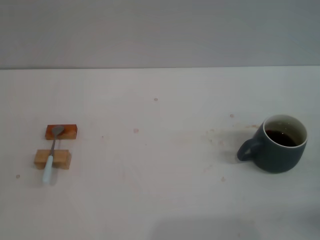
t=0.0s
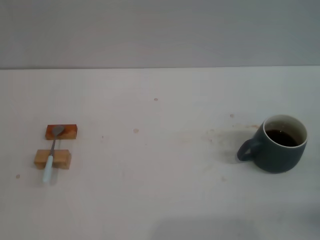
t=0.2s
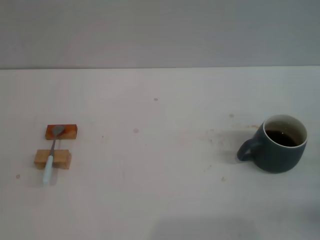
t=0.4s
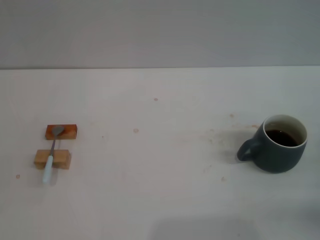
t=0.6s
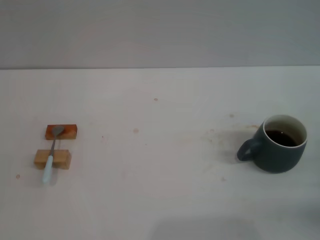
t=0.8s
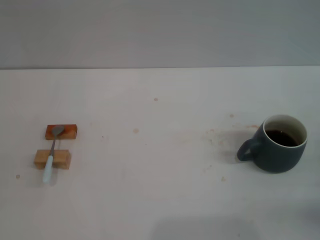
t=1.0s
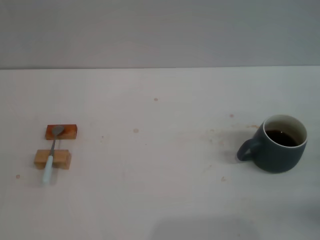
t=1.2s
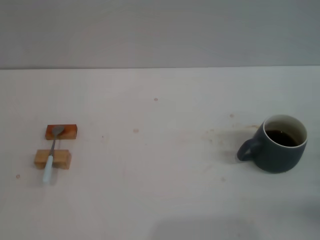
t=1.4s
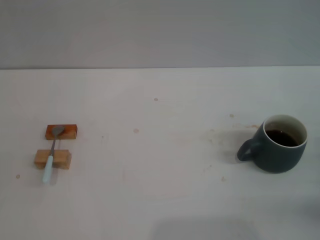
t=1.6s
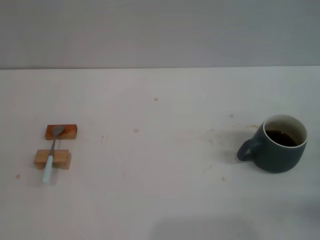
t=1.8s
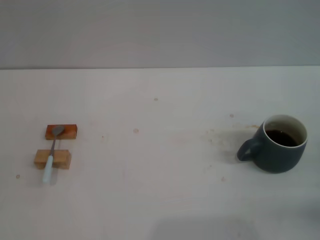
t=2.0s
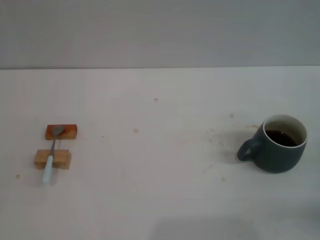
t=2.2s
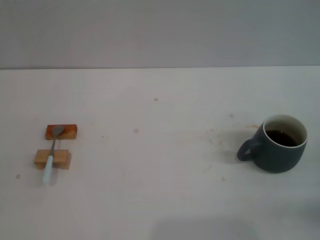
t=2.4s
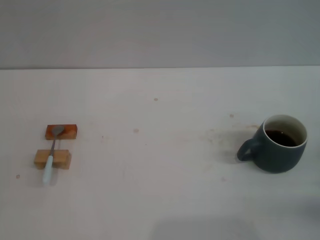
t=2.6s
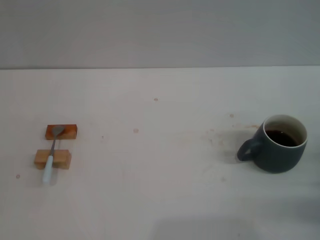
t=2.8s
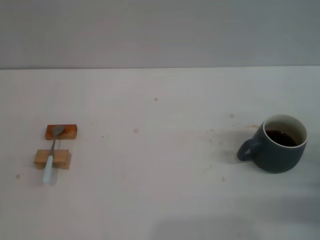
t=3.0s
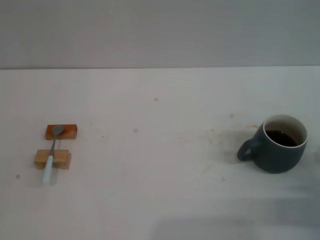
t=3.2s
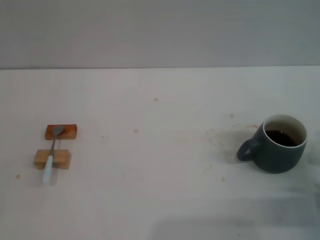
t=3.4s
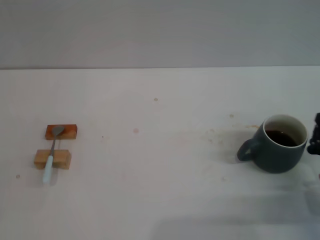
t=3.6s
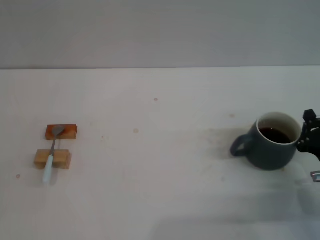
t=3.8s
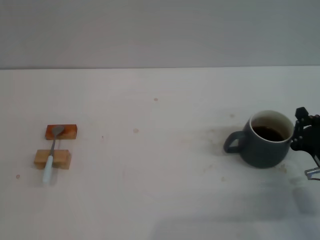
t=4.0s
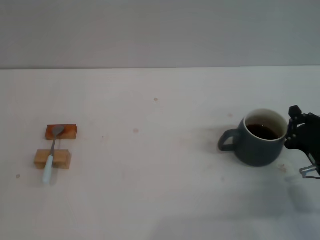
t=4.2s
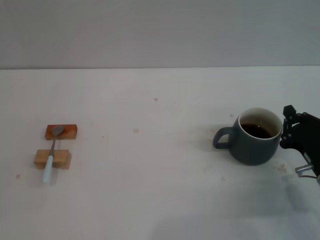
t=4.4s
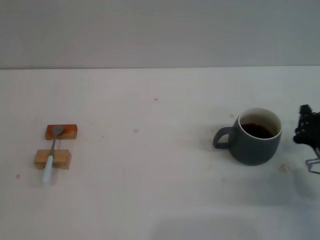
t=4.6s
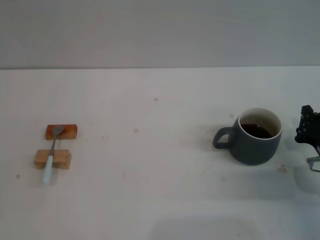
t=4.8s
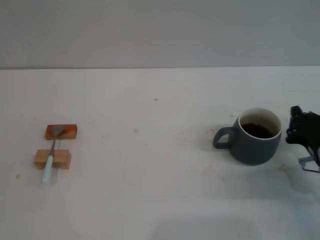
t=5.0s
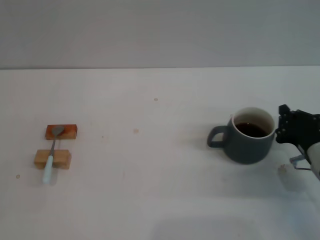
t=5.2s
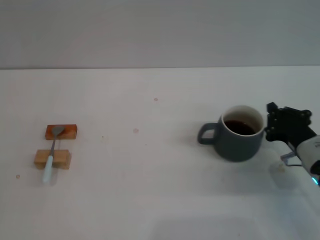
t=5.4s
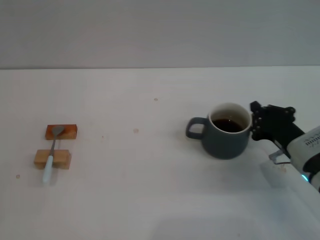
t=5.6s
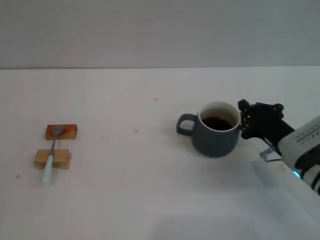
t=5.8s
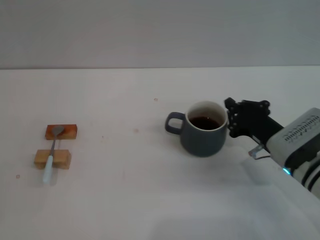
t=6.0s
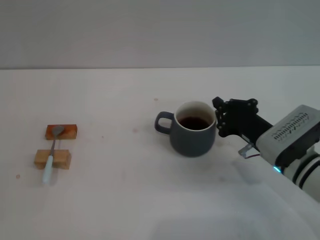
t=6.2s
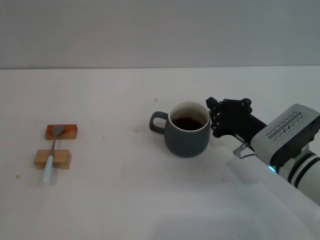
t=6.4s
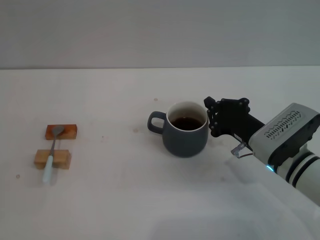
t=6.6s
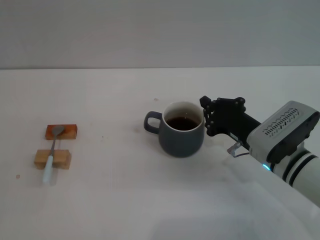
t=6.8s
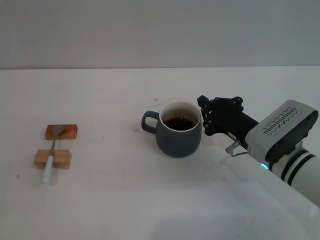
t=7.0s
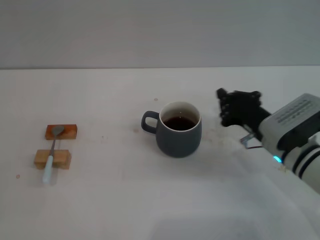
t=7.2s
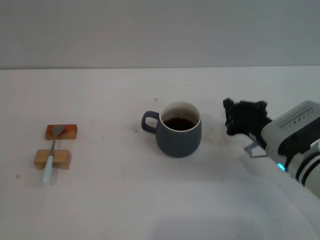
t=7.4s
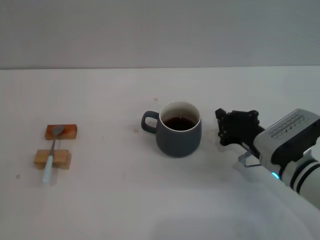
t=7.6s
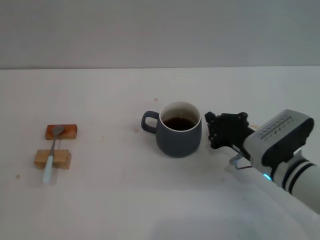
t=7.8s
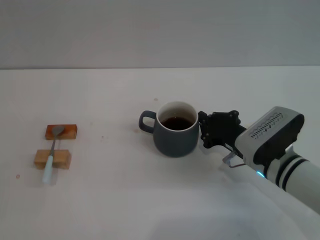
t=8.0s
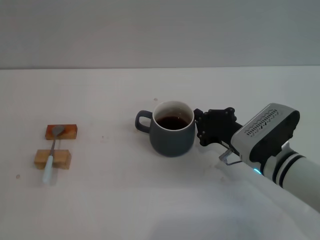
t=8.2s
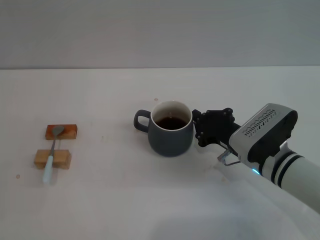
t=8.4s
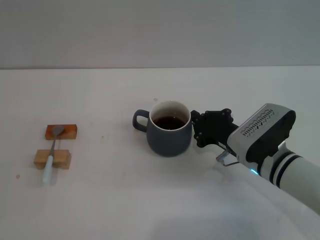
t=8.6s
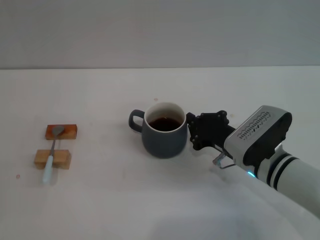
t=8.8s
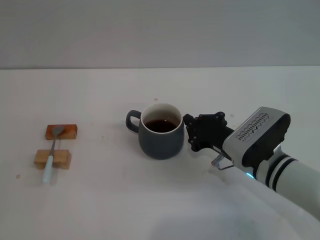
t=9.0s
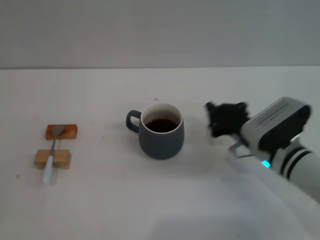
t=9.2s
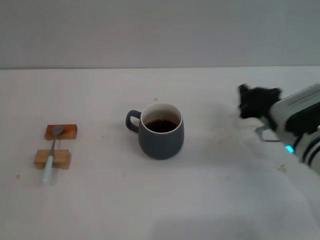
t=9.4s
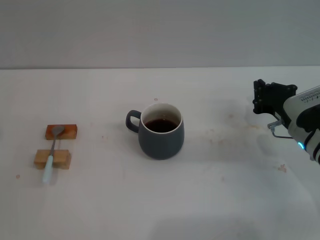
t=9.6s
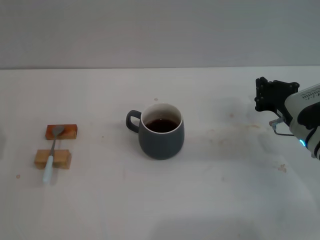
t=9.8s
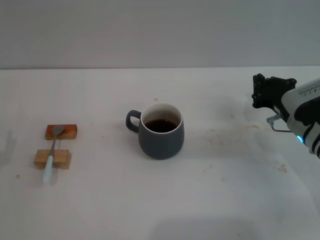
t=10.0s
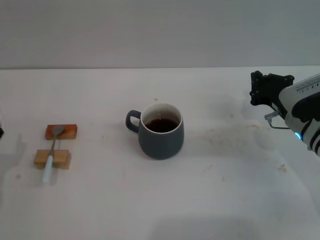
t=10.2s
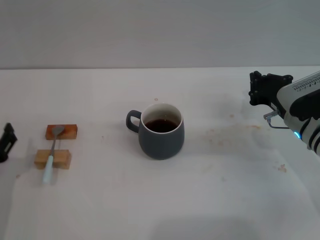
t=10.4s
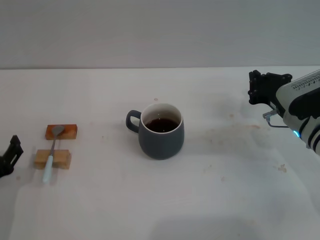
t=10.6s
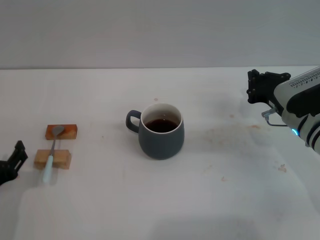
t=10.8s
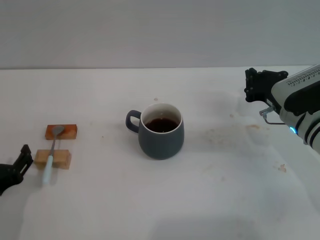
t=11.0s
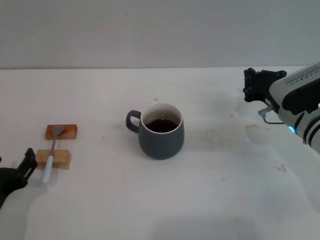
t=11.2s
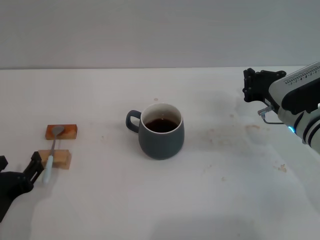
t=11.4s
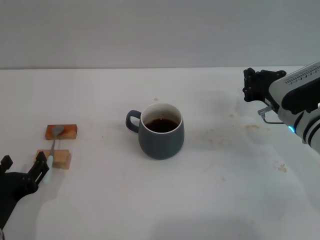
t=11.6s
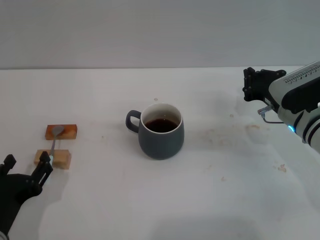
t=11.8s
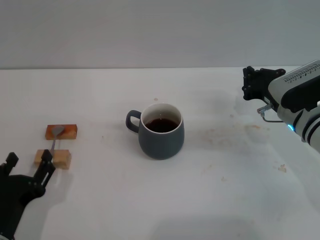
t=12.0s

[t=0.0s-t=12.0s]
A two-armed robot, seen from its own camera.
Task of the whole recording: Move the grey cup to the center, lift the blue spoon, stir it three times in the cup, and put the spoon into the cup.
Step, t=0.0s to t=10.4s: Move the cup with coffee to the center of view with the right gripper.
t=3.0s to t=4.4s: The right gripper goes roughly 5 cm to the left.
t=4.4s to t=6.0s: The right gripper shifts about 10 cm forward and to the left.
t=6.0s to t=9.0s: There are only small adjustments of the grippers.
t=9.0s to t=10.4s: The left gripper moves to the right, roughly 10 cm. The right gripper is displaced to the right and forward by approximately 10 cm.
t=10.4s to t=12.0s: The left gripper is displaced to the right and backward by roughly 10 cm.

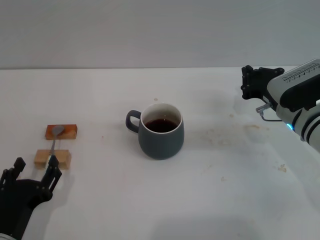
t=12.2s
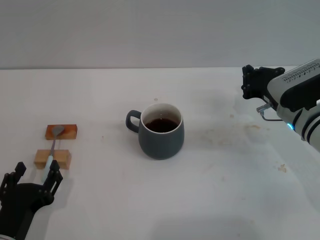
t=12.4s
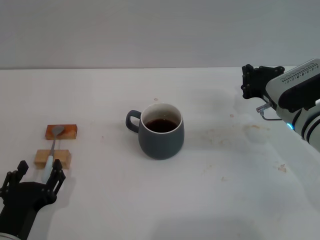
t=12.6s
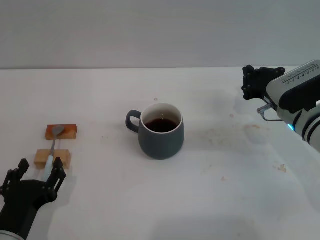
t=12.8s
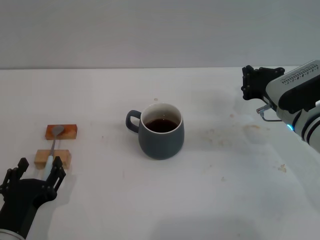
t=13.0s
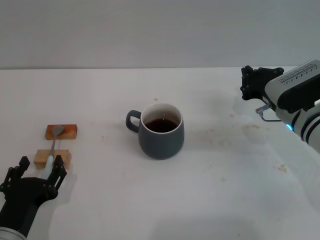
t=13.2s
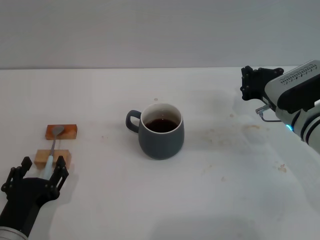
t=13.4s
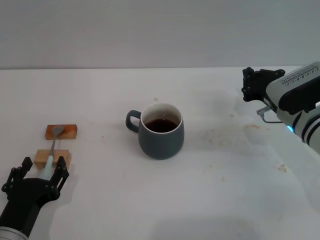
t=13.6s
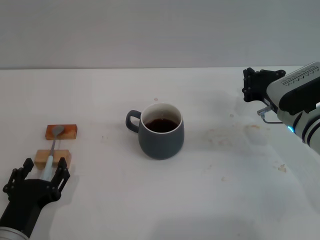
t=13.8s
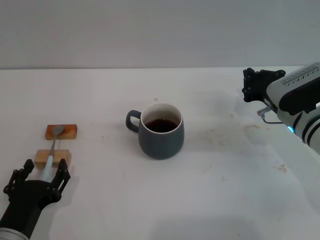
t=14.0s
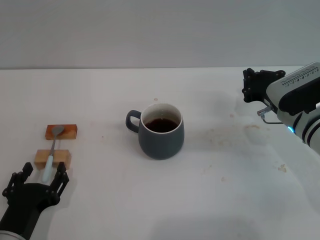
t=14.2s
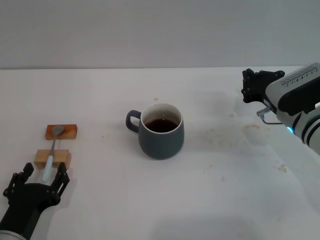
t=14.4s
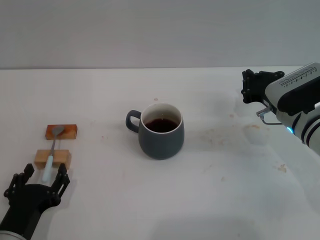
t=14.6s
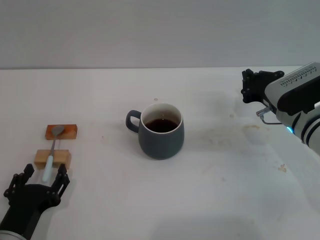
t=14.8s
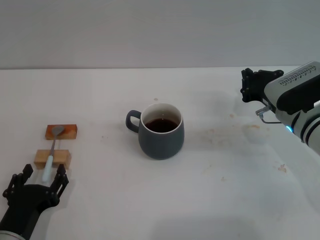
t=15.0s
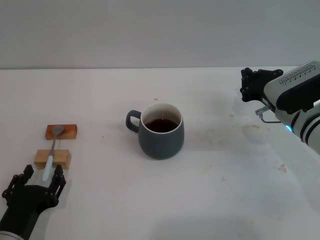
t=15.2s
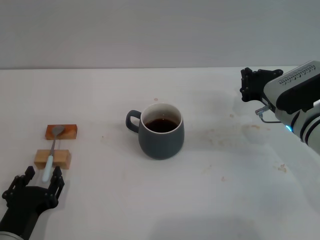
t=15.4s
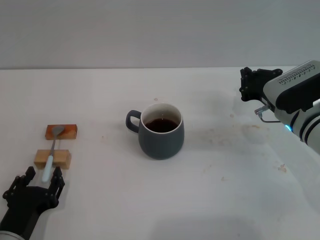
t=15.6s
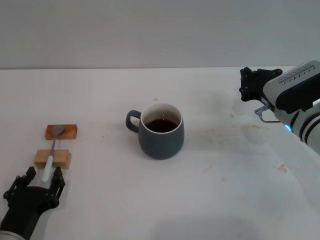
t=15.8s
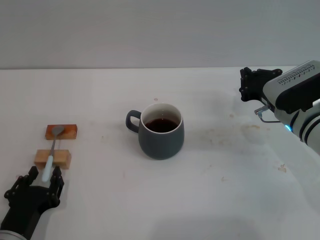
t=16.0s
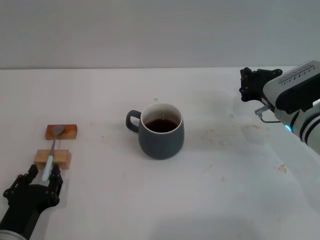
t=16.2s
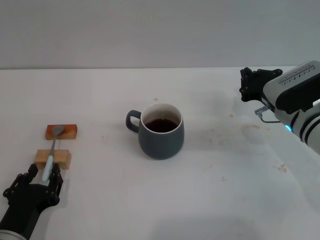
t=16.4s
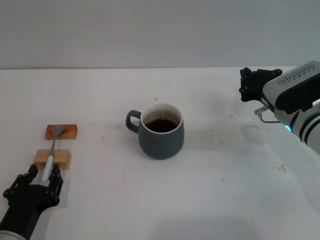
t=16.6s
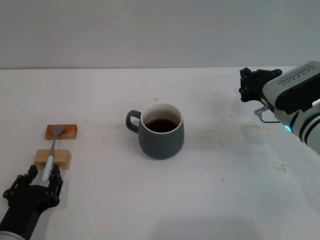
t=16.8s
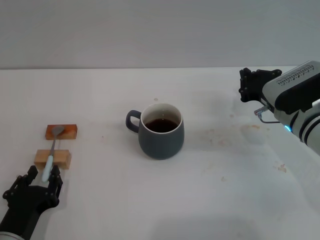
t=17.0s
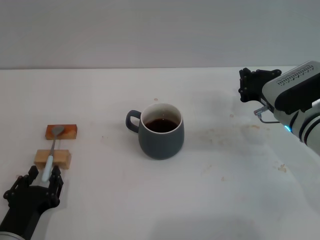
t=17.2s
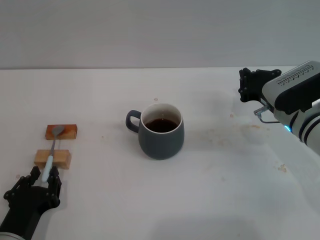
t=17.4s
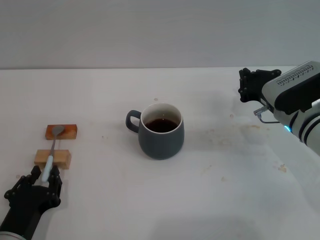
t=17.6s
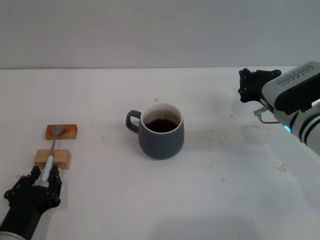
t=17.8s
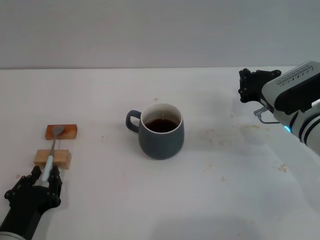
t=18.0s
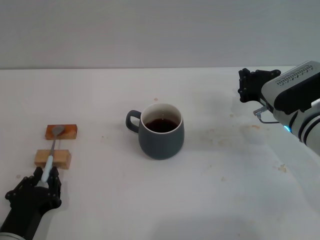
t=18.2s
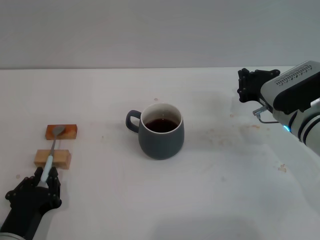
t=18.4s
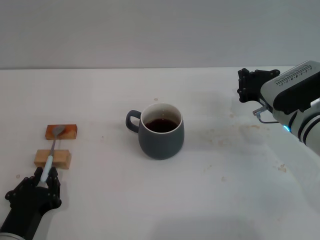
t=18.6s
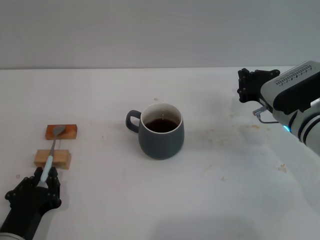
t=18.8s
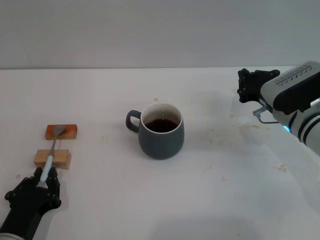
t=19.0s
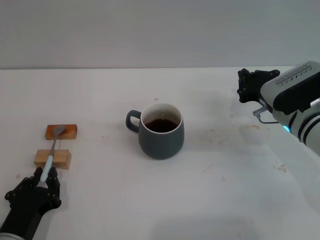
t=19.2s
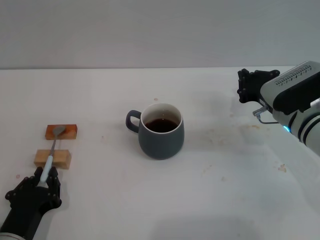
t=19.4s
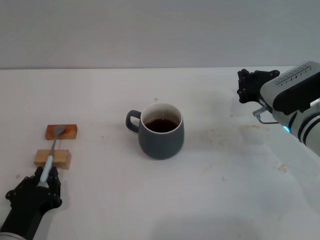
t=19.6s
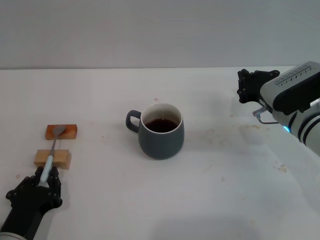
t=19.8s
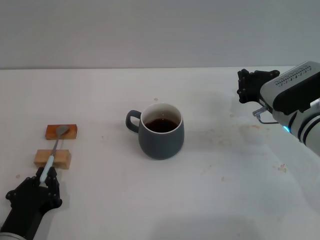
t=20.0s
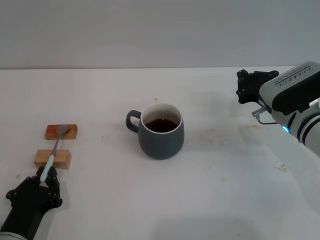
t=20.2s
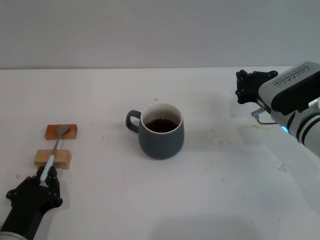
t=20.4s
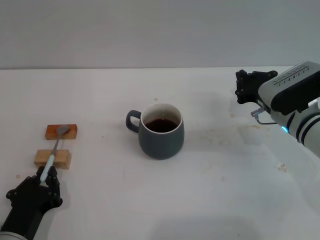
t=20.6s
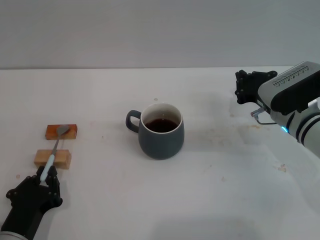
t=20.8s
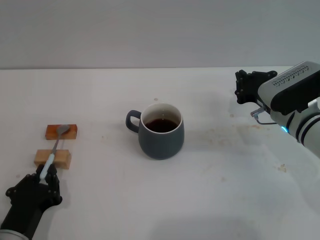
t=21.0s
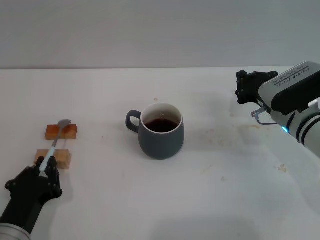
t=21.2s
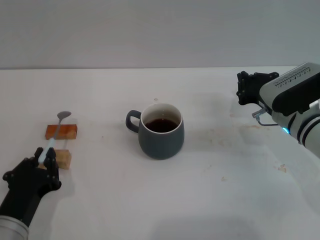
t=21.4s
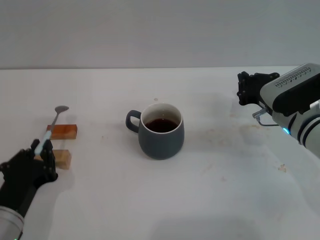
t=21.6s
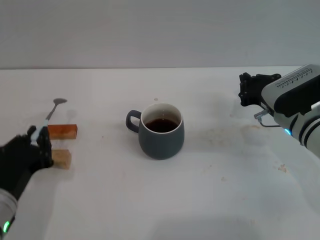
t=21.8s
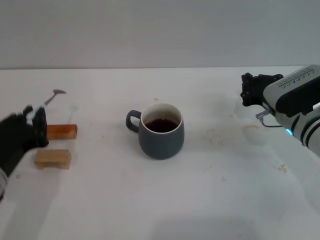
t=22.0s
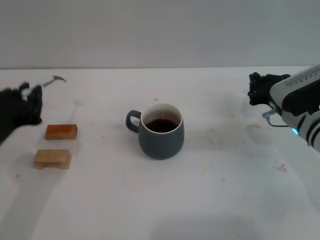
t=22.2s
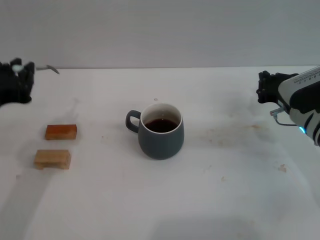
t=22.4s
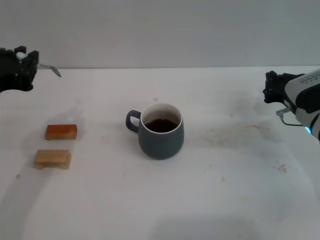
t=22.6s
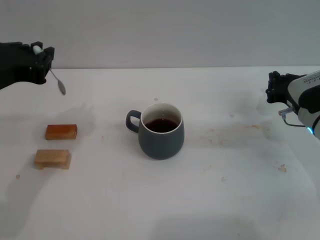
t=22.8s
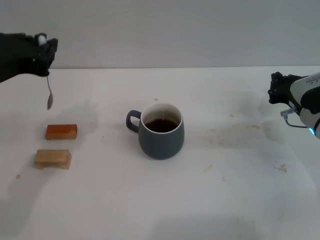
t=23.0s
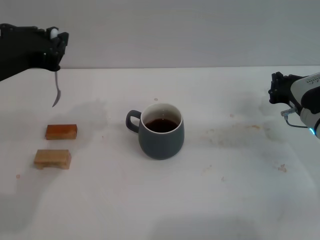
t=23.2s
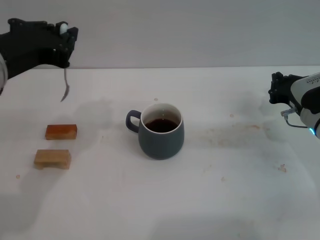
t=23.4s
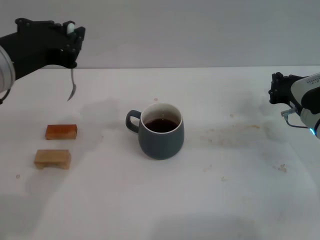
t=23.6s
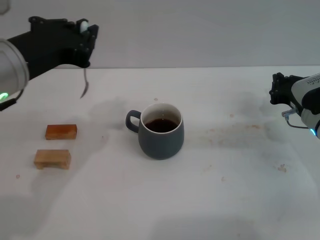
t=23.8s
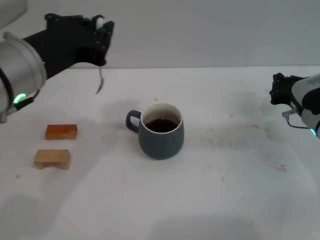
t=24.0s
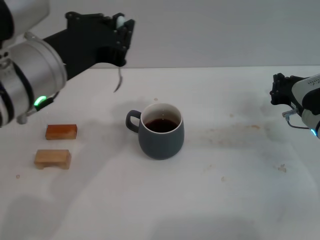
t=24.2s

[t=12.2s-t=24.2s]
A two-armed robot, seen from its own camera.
Task of the whole recording: Move the grey cup to the center, lift the blue spoon, stir it three times in the cup, and put the spoon into the cup.
Step, t=12.2s to t=22.2s: Pick up the spoon with the left gripper.
t=12.2s to t=13.8s: Neither gripper changes place.
t=13.8s to t=15.2s: The two grippers keep their place.
t=15.2s to t=21.2s: Both grippers stay put.
t=21.2s to t=22.6s: The left gripper is displaced upward by roughly 20 cm.
t=22.6s to t=24.2s: The left gripper is displaced to the right by about 10 cm.
